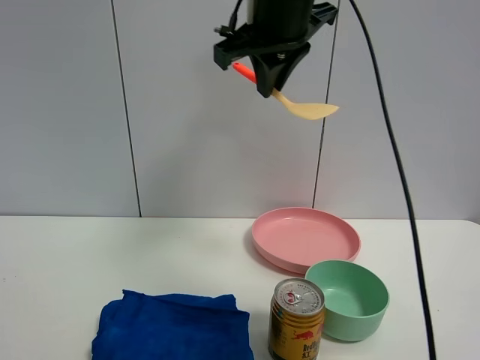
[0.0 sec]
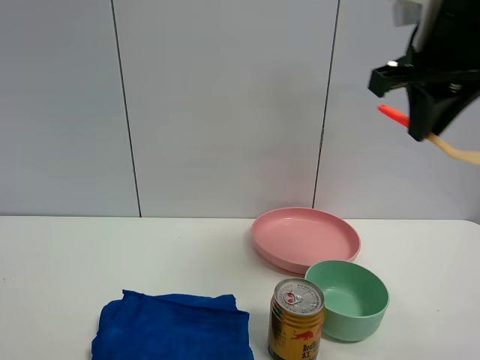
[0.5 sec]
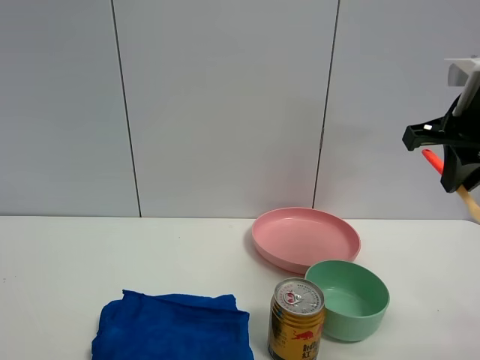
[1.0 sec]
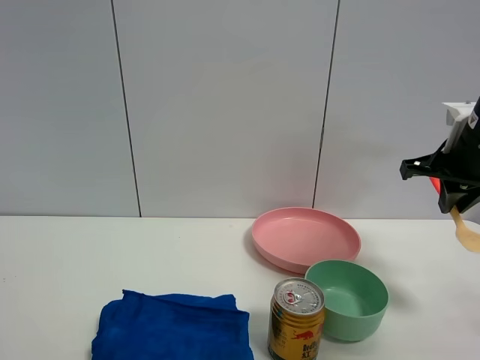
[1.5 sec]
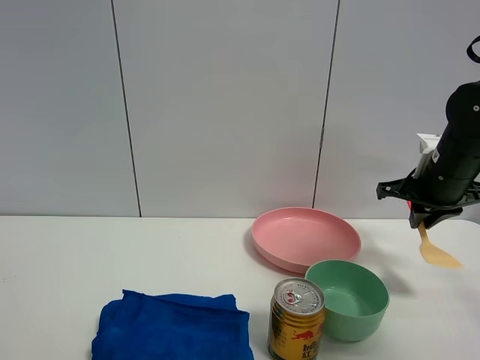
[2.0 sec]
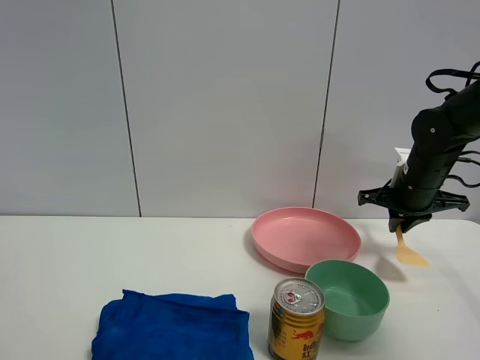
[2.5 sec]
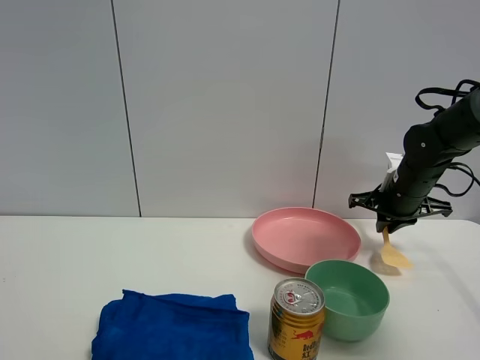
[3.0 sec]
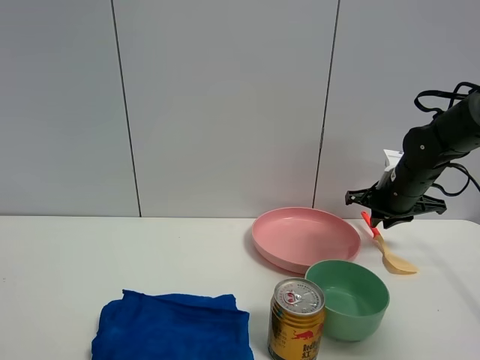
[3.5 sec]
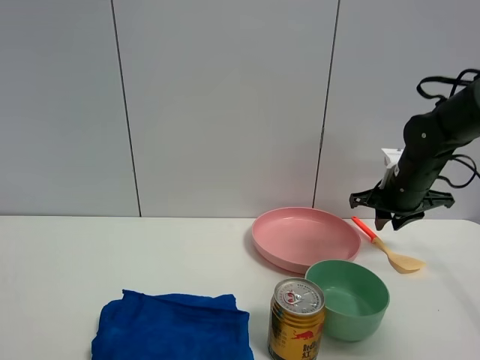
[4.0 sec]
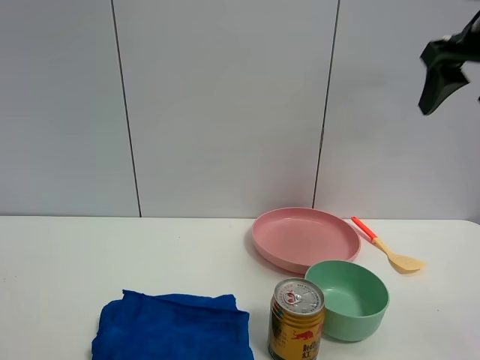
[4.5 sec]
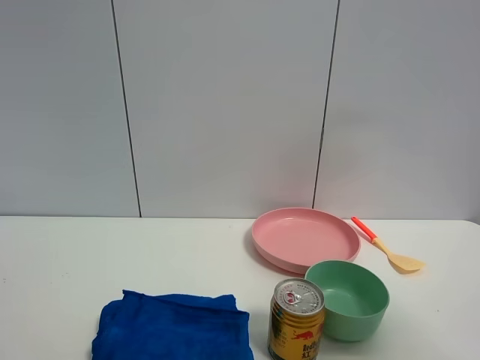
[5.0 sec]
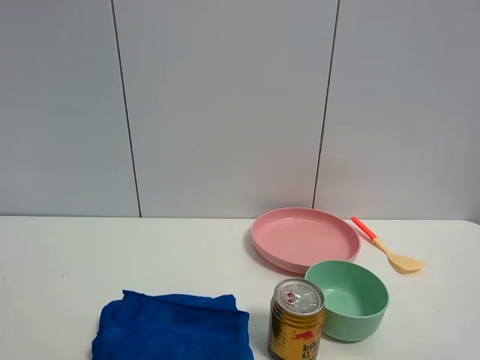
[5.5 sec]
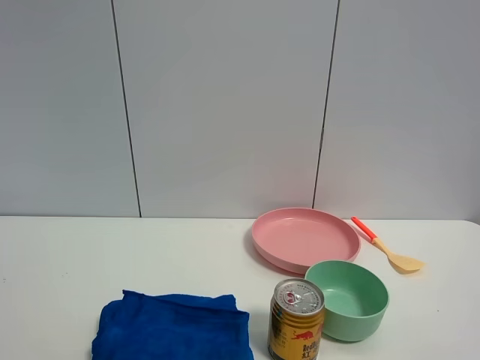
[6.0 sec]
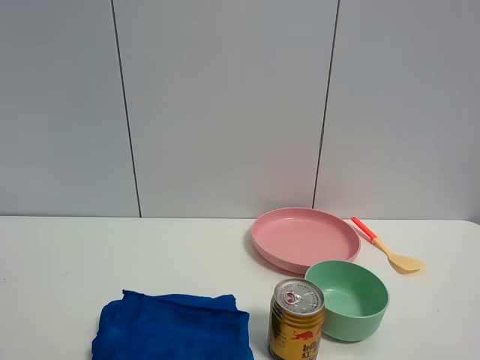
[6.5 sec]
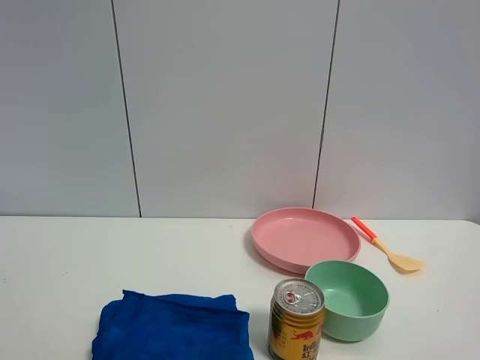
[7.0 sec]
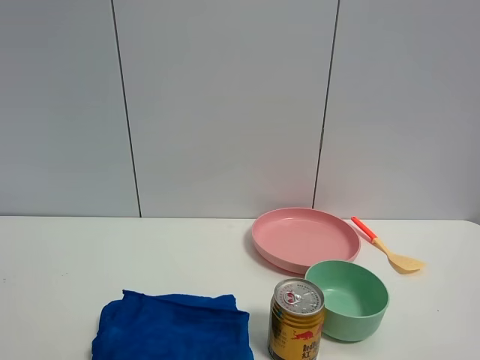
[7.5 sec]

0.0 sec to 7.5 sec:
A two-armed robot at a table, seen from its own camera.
Task of the whole recording: the gripper move the object.
Step, 0.0 sec to 3.0 sec: Place the cooking shovel on the table with the right gripper.
0.0 sec to 2.0 sec: The right gripper heads to the right and downward, covering some 30 cm.
2.0 sec to 4.0 sec: The right gripper heads forward, covering roughly 5 cm.
4.0 sec to 5.5 sec: The right gripper is displaced backward and upward by about 50 cm, and opens.

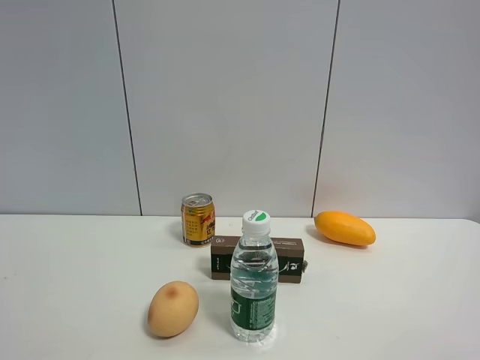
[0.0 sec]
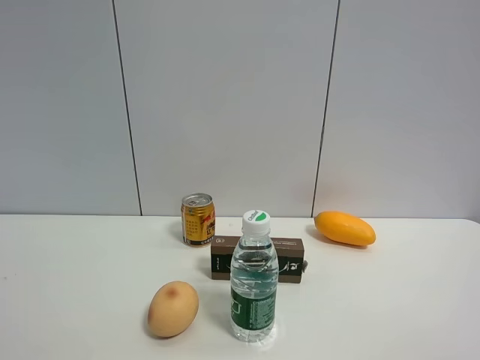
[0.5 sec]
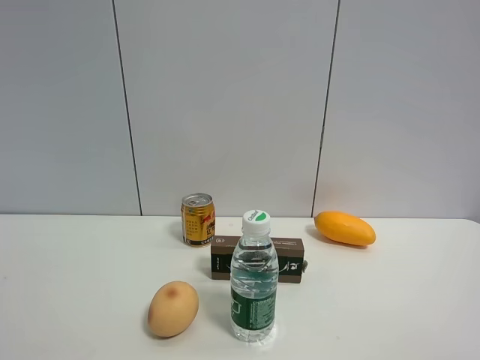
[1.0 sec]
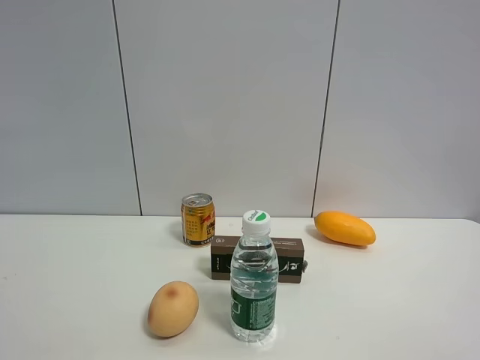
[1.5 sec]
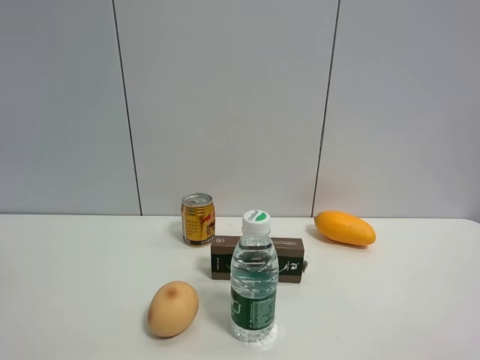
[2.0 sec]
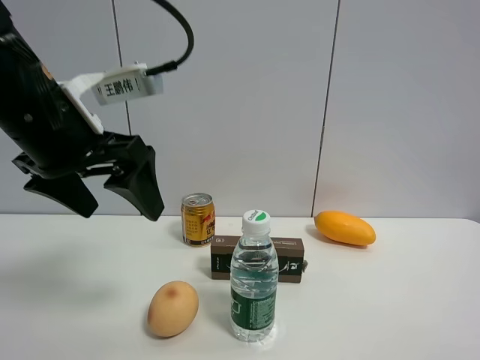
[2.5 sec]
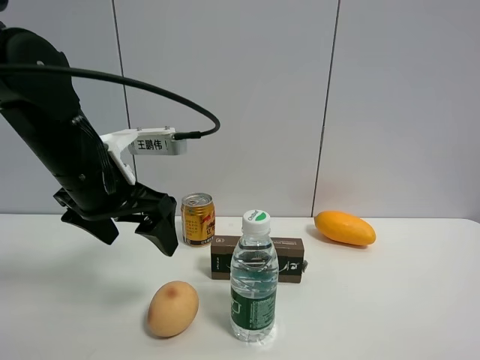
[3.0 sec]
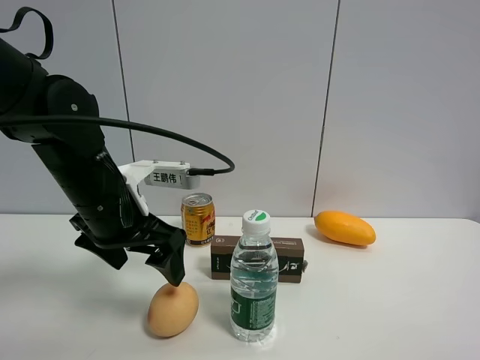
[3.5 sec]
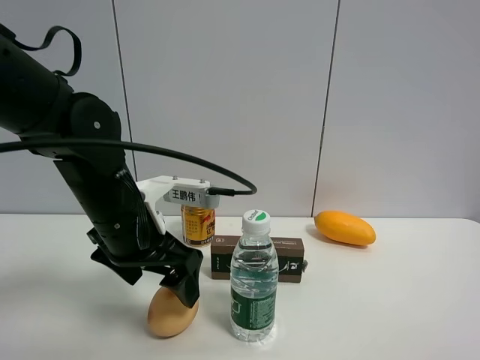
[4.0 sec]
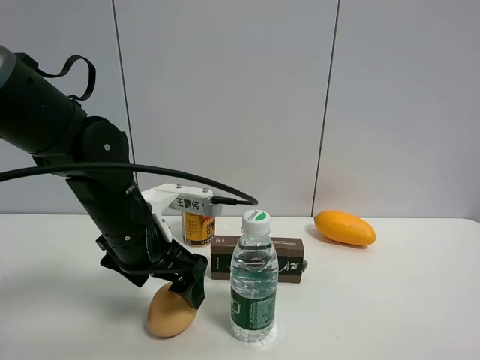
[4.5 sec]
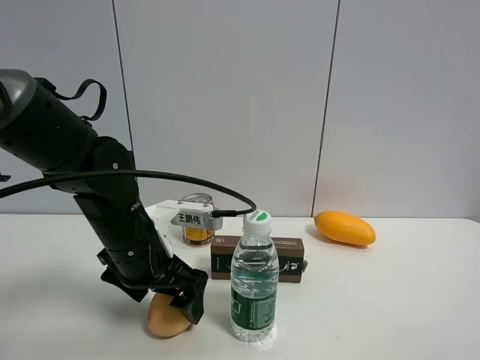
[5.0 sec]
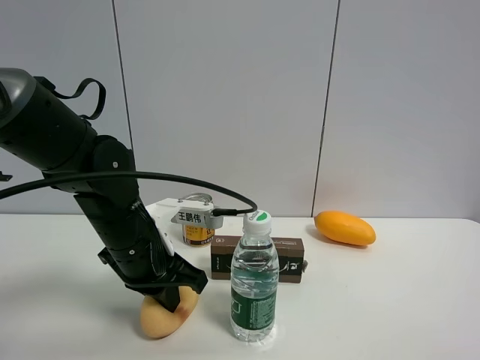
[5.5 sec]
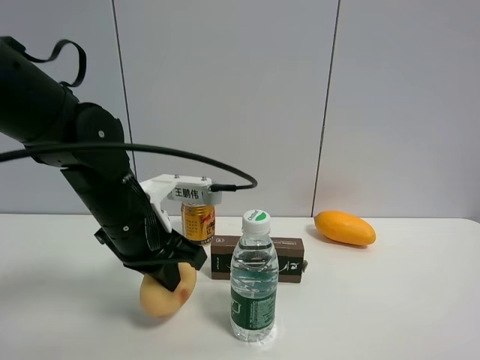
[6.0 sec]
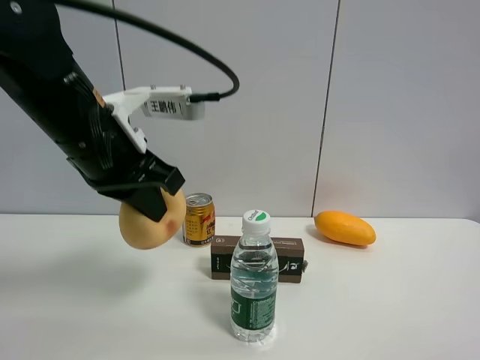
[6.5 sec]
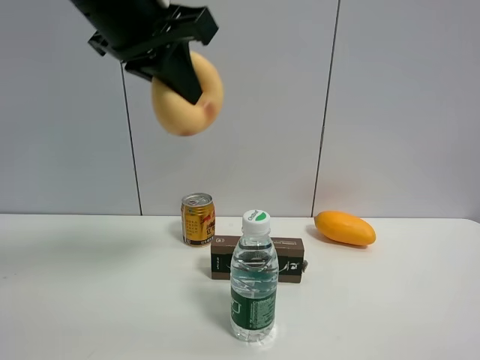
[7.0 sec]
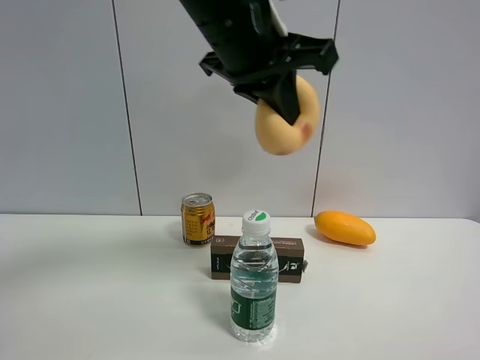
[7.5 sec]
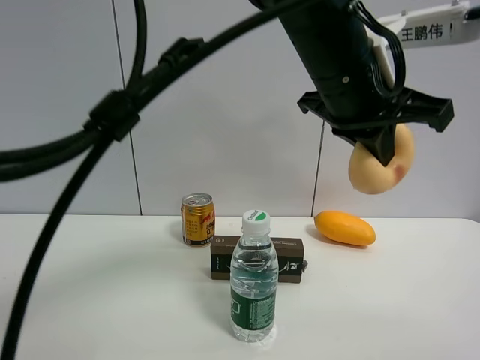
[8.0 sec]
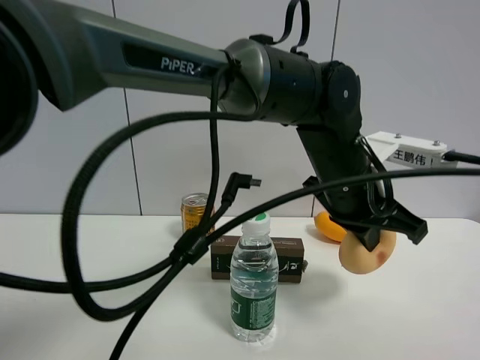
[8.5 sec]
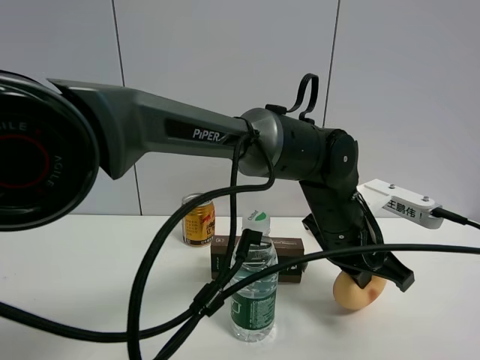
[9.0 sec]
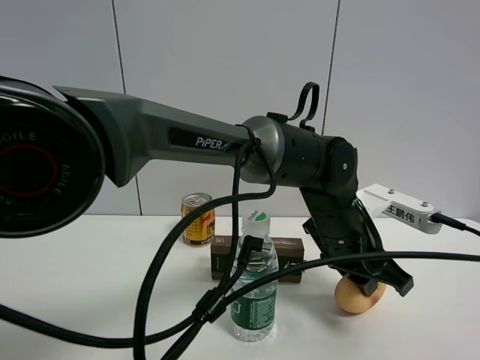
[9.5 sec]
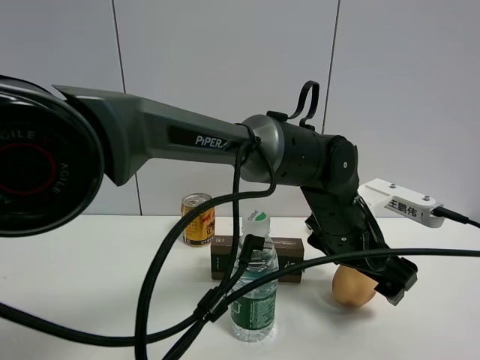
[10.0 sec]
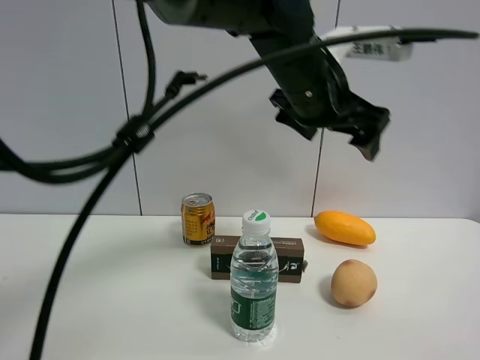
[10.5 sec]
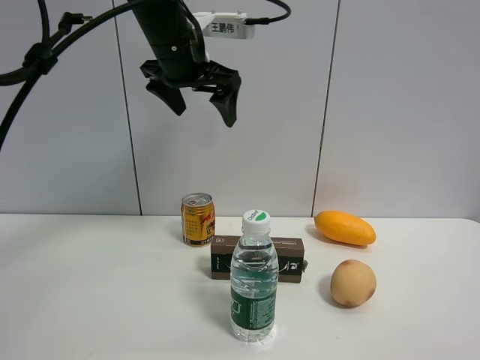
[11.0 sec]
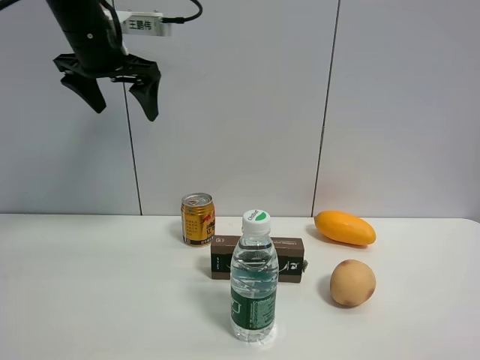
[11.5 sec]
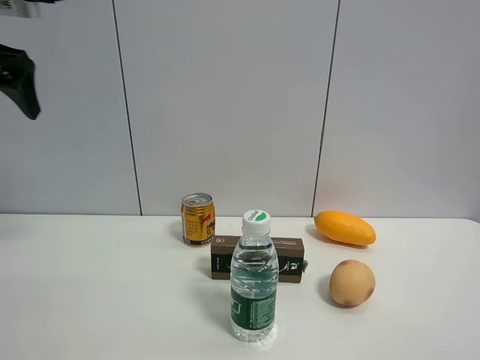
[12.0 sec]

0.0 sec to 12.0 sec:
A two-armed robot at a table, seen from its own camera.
Task of the whole recording: the gripper move the object.
Step, 0.0 sec to 5.5 sec: Grasp the egg yolk pastry with the left gripper.
Step, 6.0 sec to 10.0 sec: Place the egg yolk pastry on the table with the left gripper.
2.0 sec to 4.0 sec: The left gripper shifts about 30 cm downward, to the right and forward.
4.0 sec to 6.0 sec: The left gripper closes its fingers.
6.0 sec to 8.0 sec: The left gripper travels to the right and upward by approximately 25 cm.
8.0 sec to 10.0 sec: The left gripper heads downward, covering approximately 15 cm, and opens up.
10.0 sec to 12.0 sec: The left gripper moves to the left and upward, roughly 50 cm.

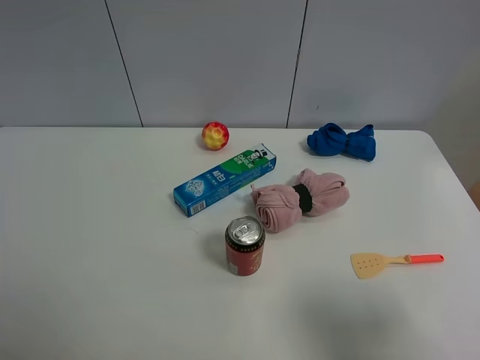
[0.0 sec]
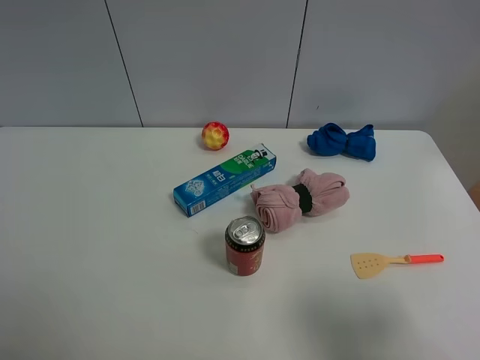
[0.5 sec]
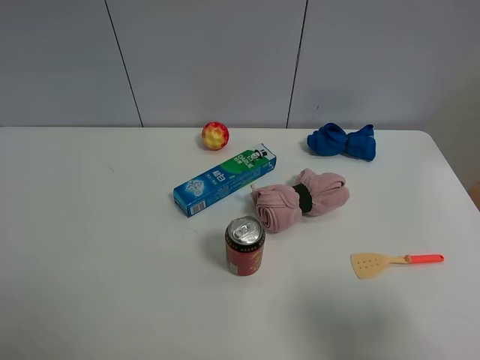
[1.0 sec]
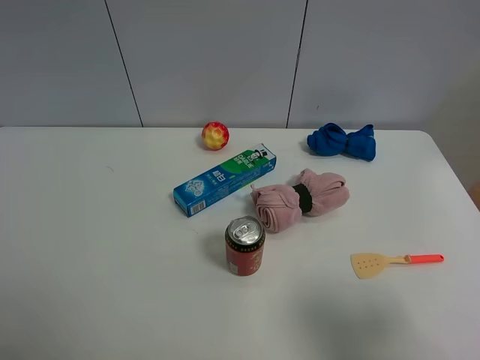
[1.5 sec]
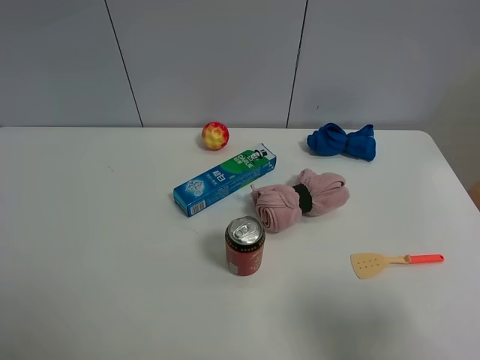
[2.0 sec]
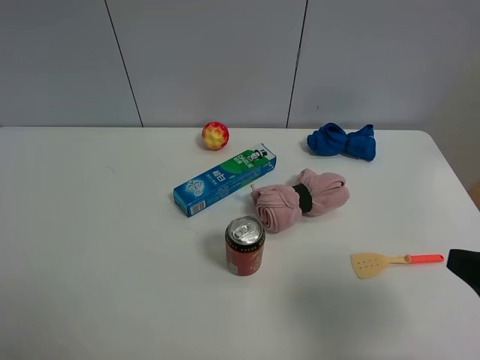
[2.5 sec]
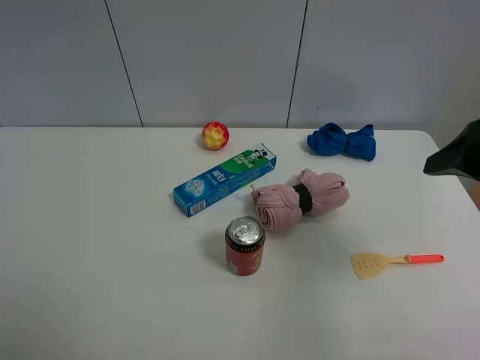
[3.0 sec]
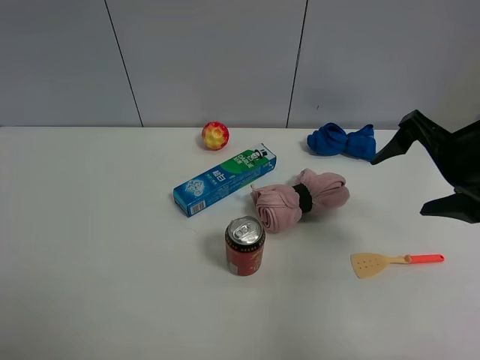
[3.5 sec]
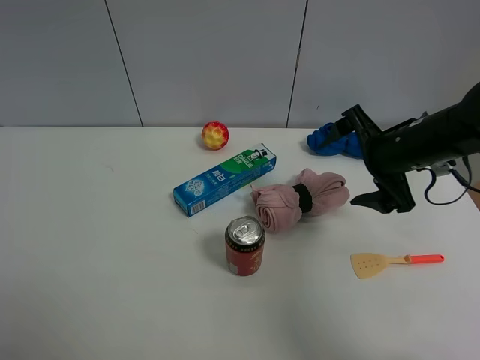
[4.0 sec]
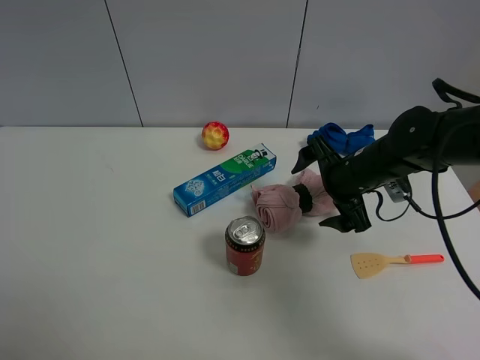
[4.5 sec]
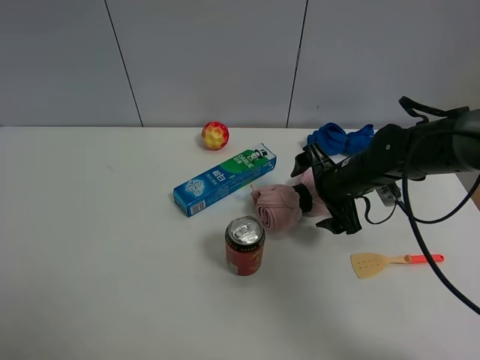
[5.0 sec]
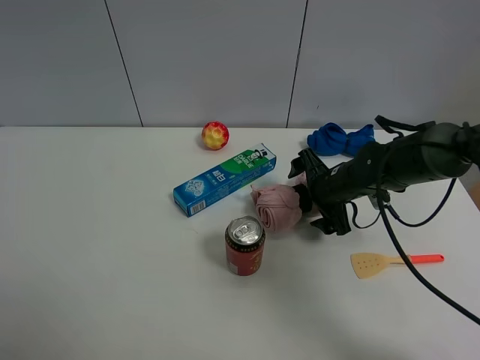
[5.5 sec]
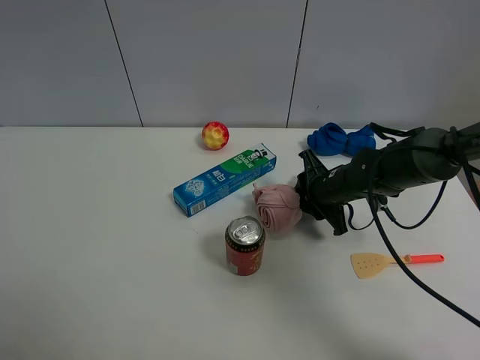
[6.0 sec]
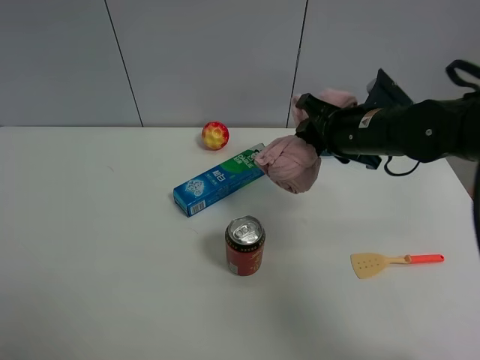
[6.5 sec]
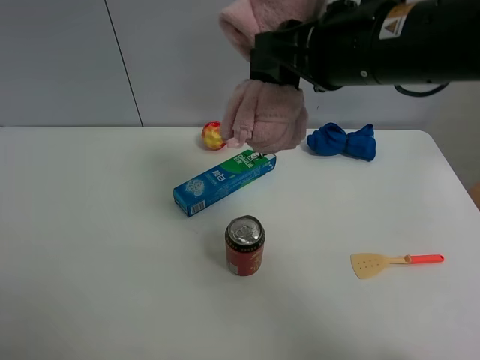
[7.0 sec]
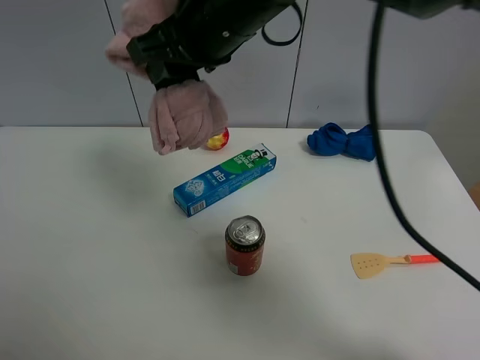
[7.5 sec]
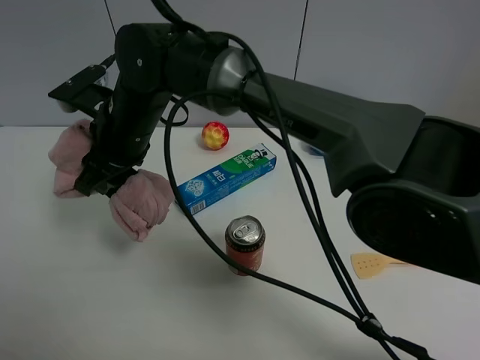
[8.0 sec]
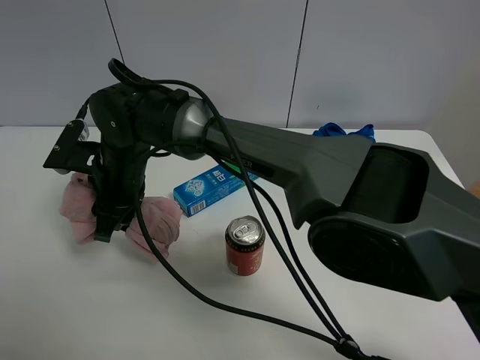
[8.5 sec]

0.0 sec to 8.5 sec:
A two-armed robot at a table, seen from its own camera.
Task of the whole recording: the gripper move the object.
Step, 0.0 sec to 6.0 sec: Grasp the pink towel with the right gripper.
0.0 sec to 2.0 sec: Both grippers stay put.
2.0 sec to 4.0 sec: The right gripper shifts some 30 cm forward.
4.0 sec to 6.5 sec: The right gripper travels downward and back again, approximately 10 cm each way, and closes.
6.5 sec to 8.5 sec: The right gripper heads to the left, covering roughly 30 cm.
